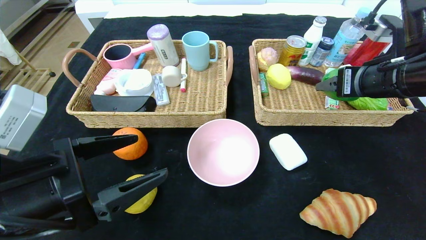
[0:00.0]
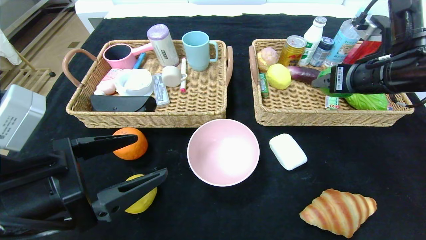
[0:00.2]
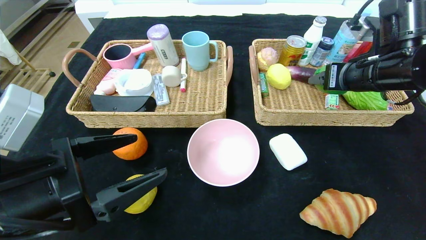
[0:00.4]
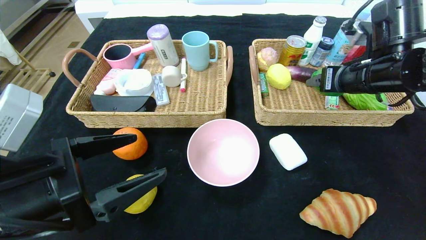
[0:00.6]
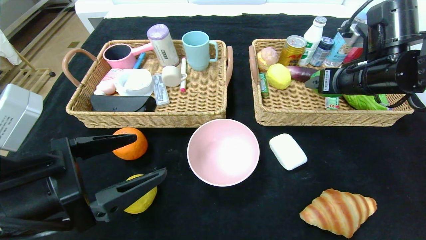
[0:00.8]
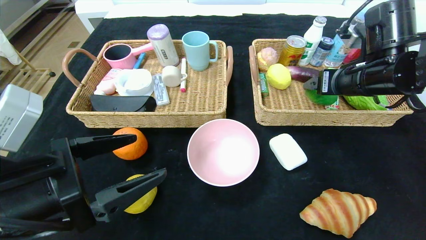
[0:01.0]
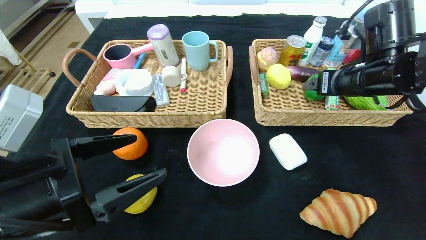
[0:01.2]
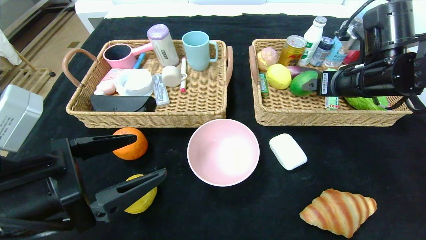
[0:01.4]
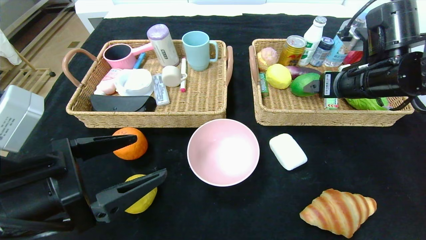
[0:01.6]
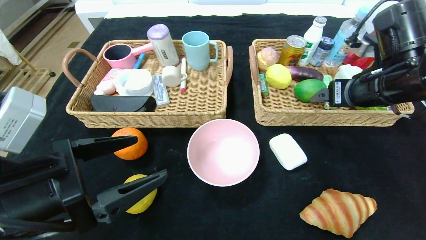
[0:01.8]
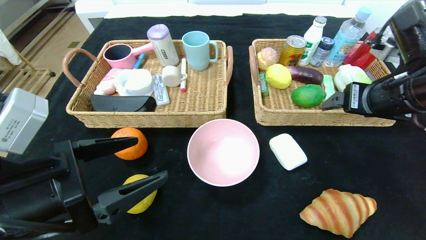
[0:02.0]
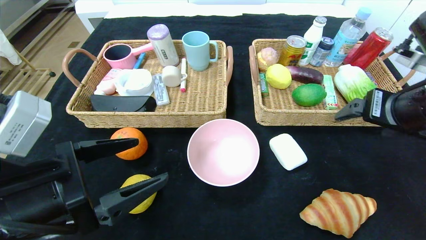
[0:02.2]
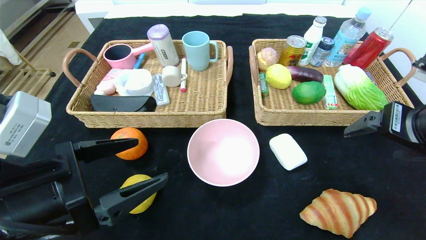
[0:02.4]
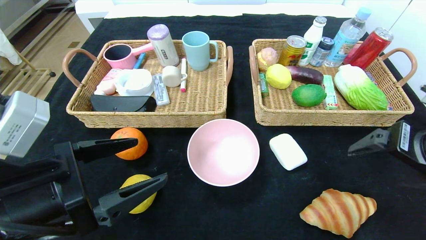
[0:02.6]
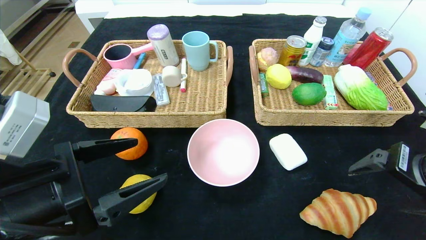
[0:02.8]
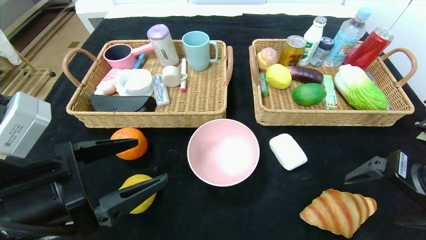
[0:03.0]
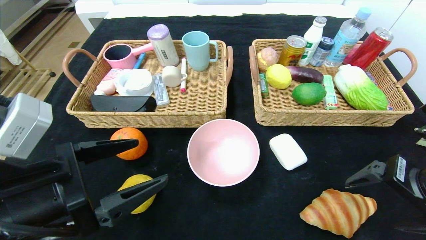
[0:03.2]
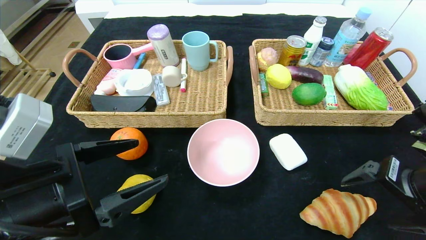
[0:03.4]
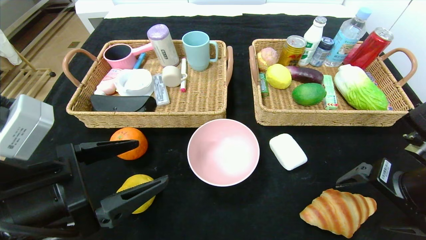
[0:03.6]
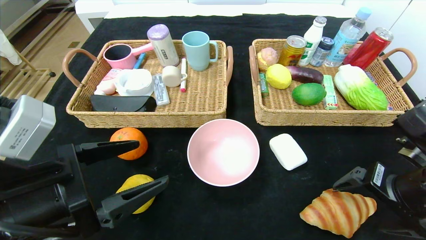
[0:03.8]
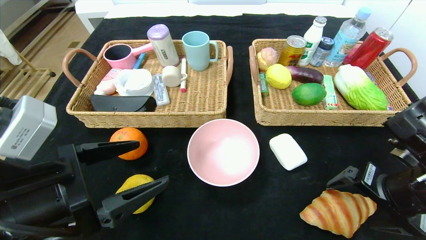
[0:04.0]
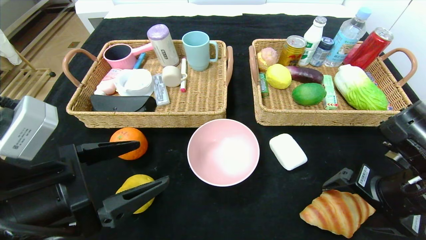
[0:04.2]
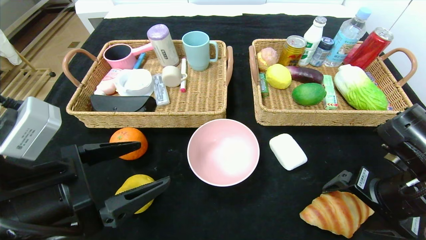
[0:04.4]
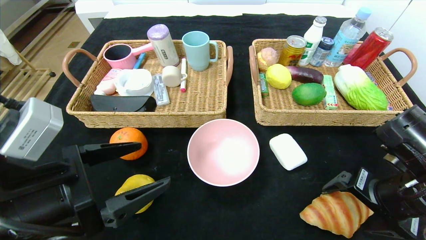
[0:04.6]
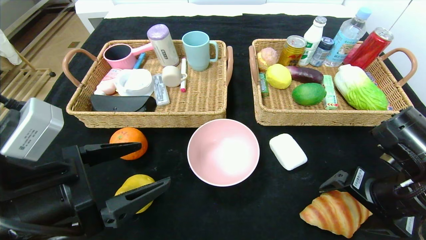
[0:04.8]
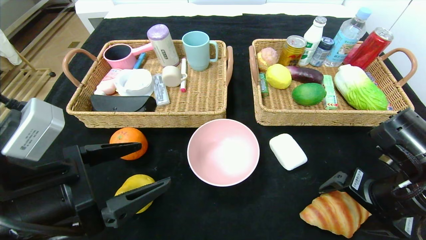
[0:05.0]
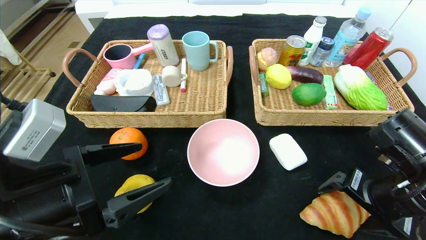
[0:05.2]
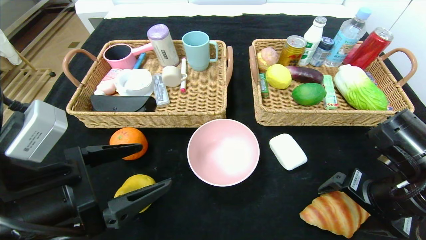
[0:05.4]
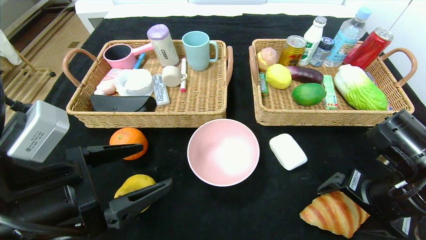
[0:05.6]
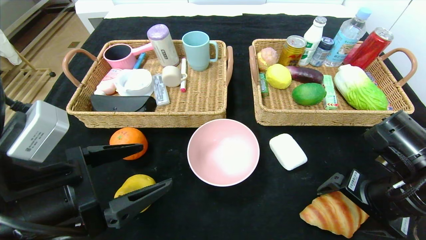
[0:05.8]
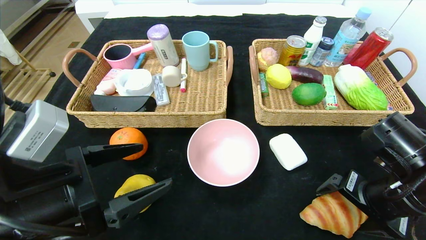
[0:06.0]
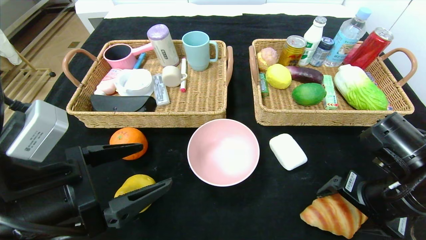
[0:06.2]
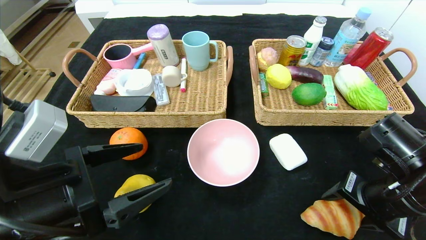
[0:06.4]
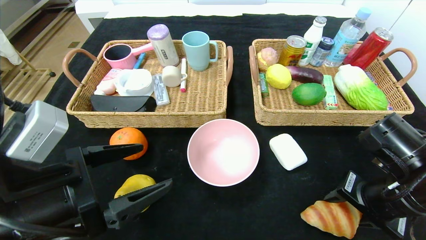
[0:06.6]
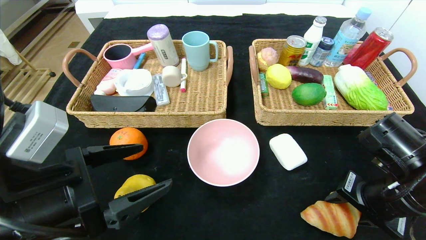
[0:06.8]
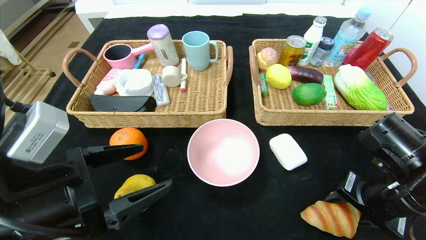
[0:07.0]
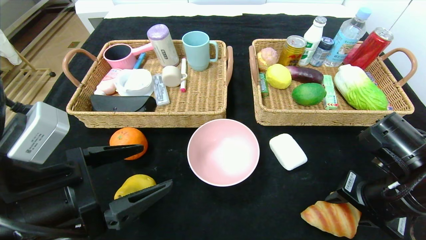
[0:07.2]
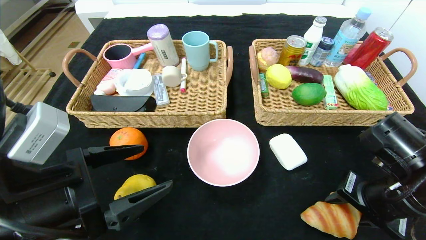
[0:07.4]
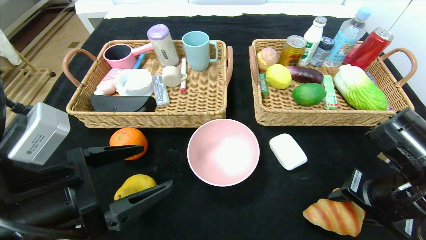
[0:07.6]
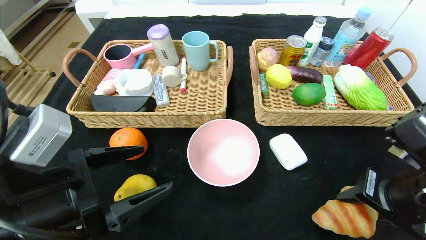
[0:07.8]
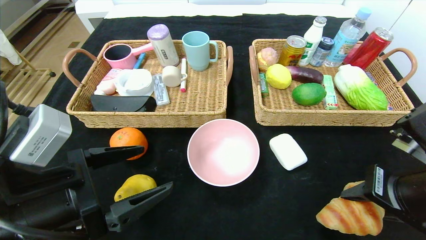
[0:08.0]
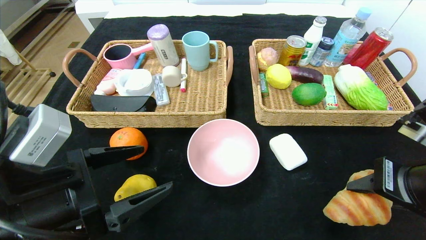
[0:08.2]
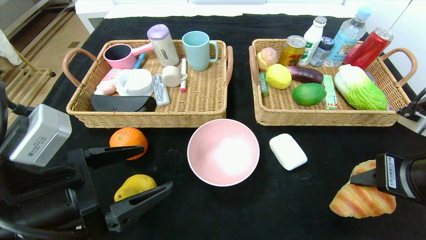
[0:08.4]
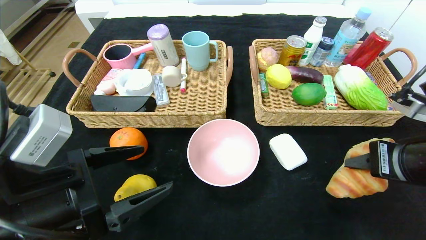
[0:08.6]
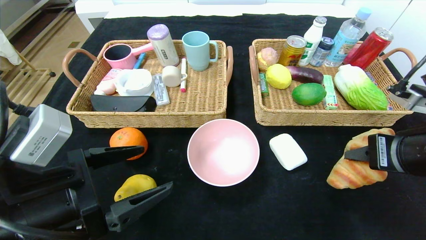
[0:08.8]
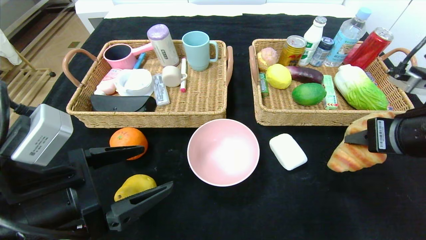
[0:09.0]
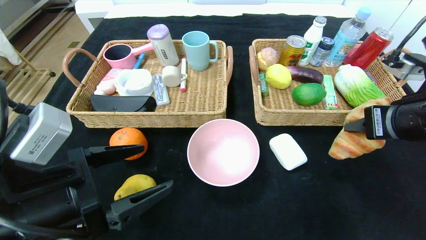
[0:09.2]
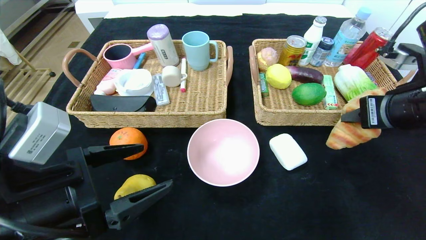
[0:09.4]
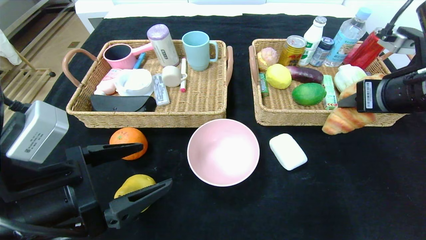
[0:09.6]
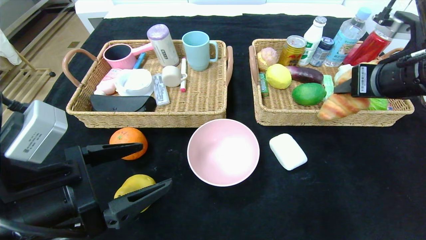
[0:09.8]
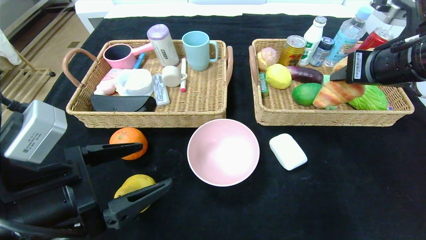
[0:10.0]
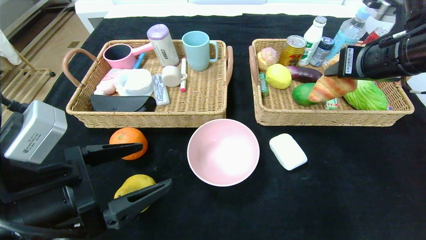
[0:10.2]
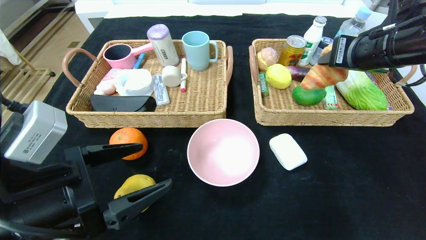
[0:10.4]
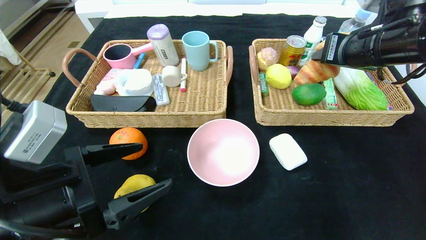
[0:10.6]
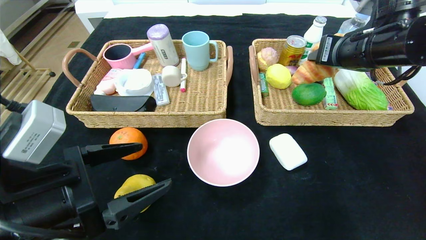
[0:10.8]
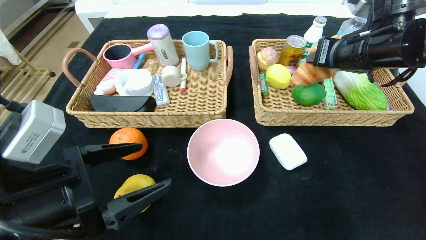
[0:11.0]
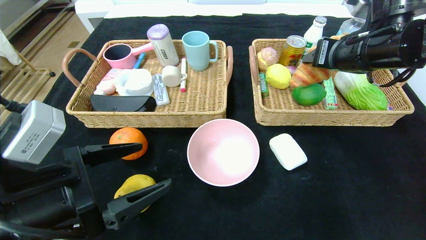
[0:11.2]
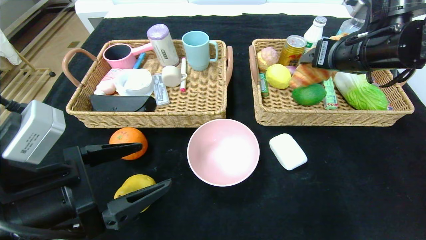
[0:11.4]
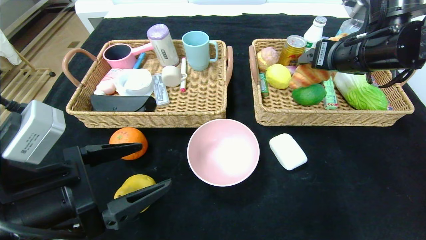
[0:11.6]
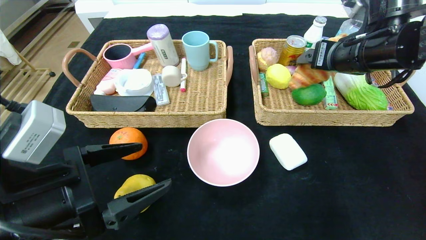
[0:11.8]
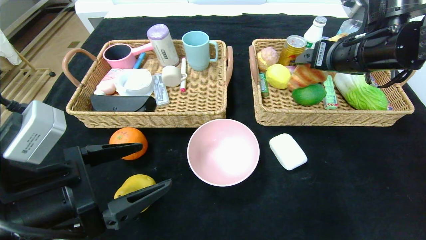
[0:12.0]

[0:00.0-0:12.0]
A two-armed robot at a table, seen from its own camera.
Step, 0:00.0 to 0:02.4: Pick up the lime and put it in the right basket.
0:00.0 to 0:01.6: The right gripper opens.
0:01.6 to 0:03.0: The right gripper travels backward by approximately 15 cm.
0:03.0 to 0:04.4: The right gripper goes approximately 5 cm downward.
0:04.4 to 0:06.0: The grippers move only a little.
0:06.0 to 0:07.6: The right gripper closes its fingers.
0:07.6 to 0:09.0: The right gripper travels upward by roughly 10 cm.
0:09.0 to 0:10.4: The right gripper shifts some 10 cm forward and upward.
0:10.4 to 0:12.0: The right gripper opens.

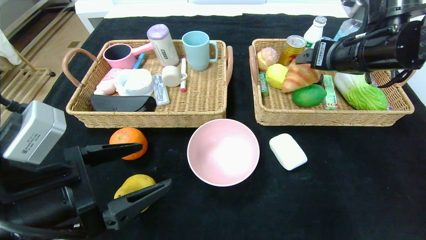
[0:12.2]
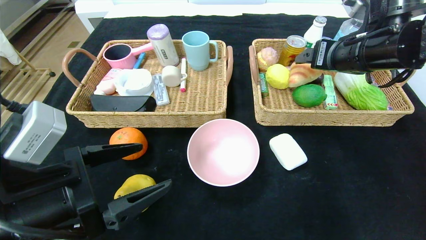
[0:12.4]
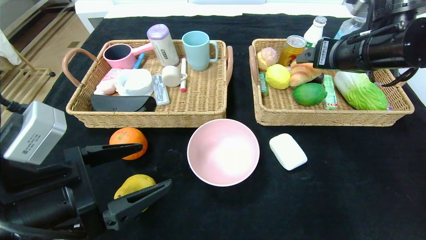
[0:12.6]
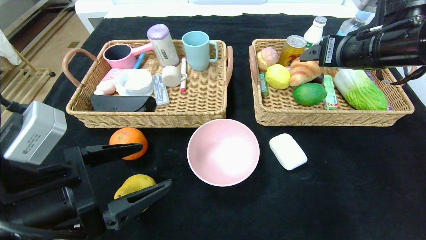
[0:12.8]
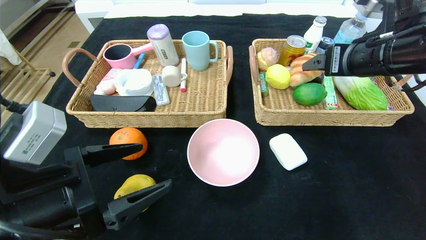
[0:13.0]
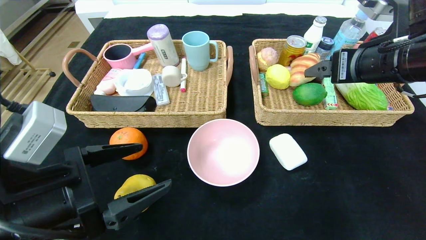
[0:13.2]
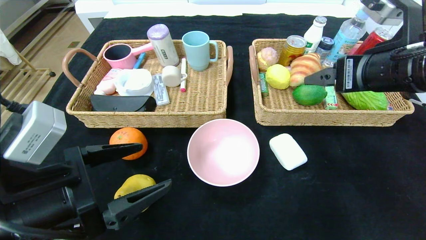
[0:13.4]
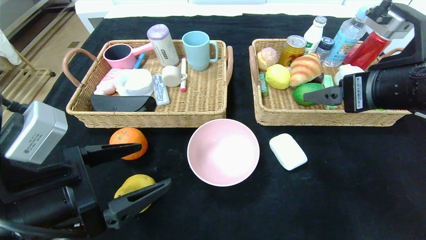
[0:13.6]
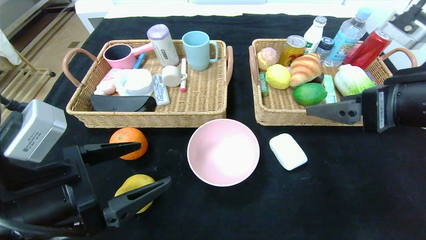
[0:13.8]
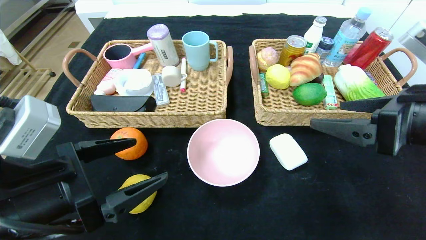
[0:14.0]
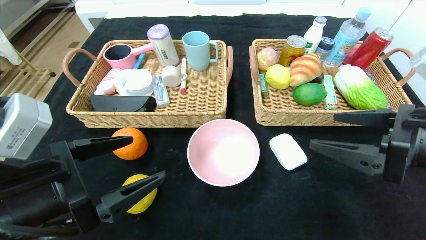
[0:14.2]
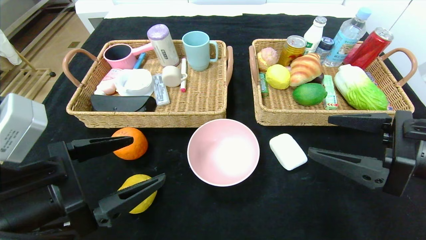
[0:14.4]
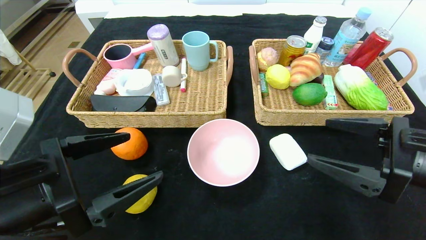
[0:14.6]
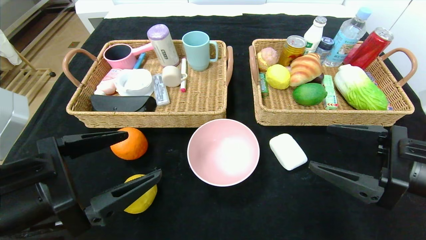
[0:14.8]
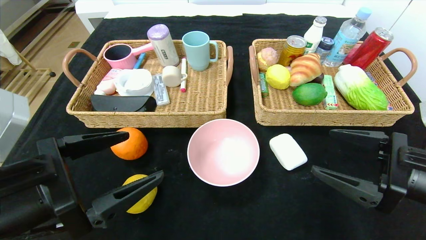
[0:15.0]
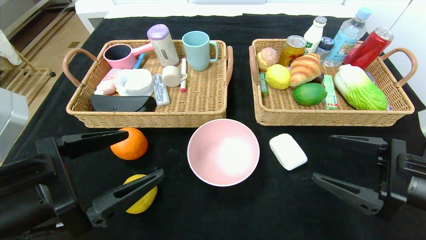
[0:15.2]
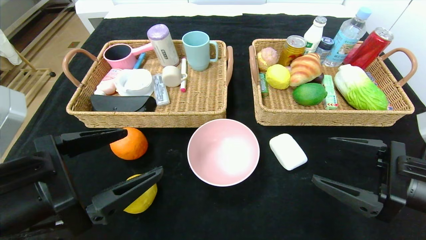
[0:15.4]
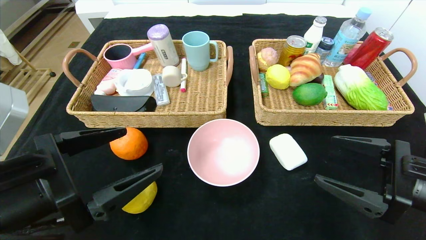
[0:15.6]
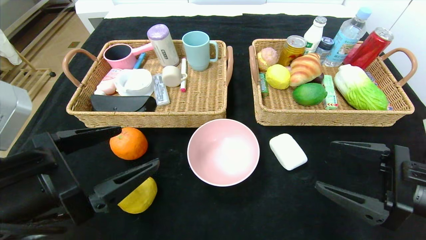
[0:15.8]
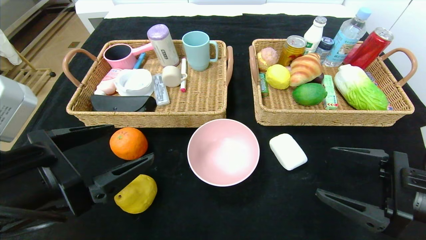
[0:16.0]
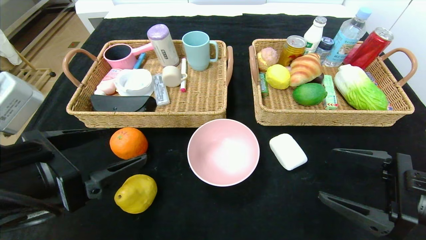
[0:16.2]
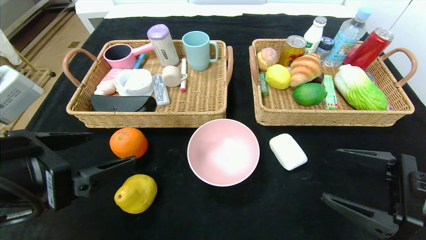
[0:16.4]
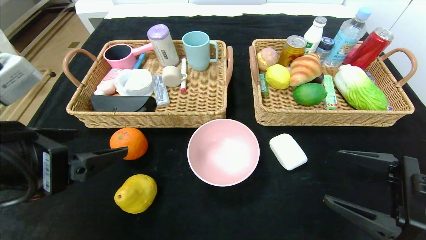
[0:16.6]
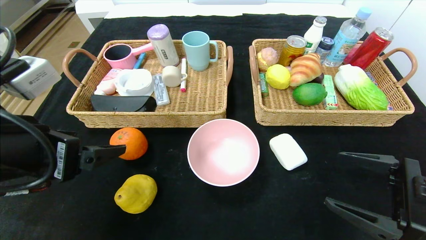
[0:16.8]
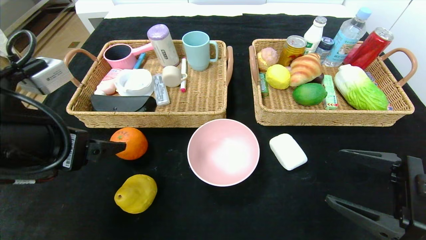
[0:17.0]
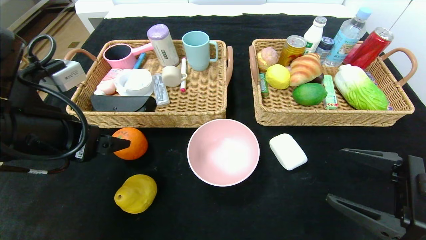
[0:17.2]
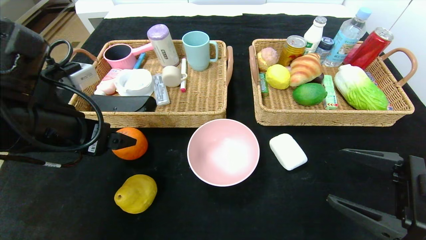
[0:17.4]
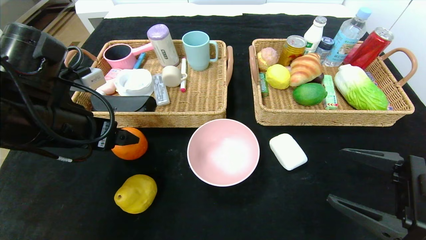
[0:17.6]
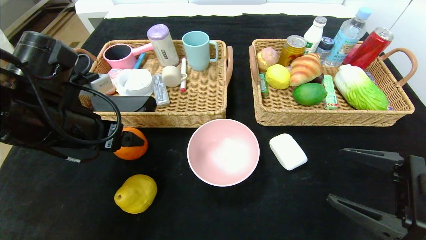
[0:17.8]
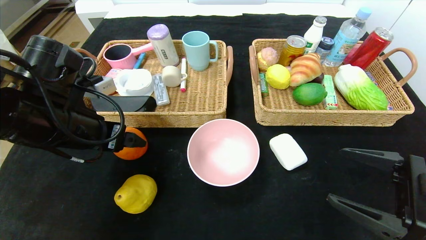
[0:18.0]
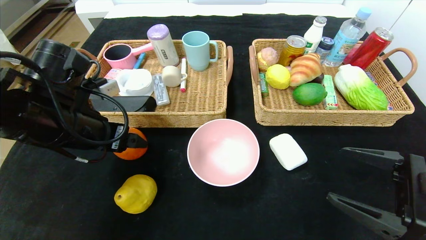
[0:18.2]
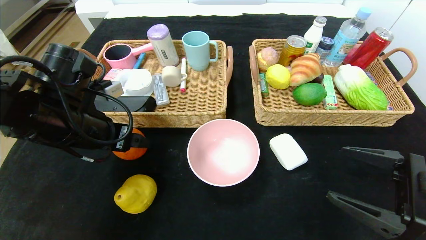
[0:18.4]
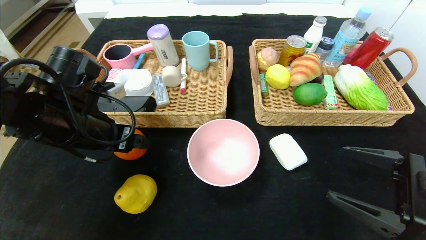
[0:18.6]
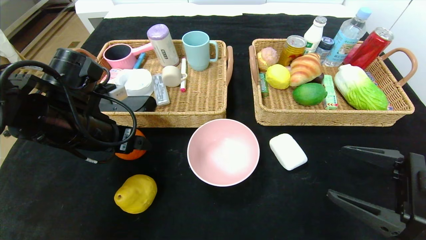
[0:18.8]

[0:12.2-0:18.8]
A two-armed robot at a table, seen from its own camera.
Step, 0:12.2 to 0:14.4: Pick up the croissant and put it in the right basket.
0:12.2 to 0:13.8: The right gripper travels backward by about 15 cm.
0:13.8 to 0:15.4: The right gripper moves downward, approximately 10 cm.
0:15.4 to 0:17.2: The left gripper heads forward, covering roughly 5 cm.
0:17.2 to 0:18.8: The left gripper heads forward, covering about 5 cm.
